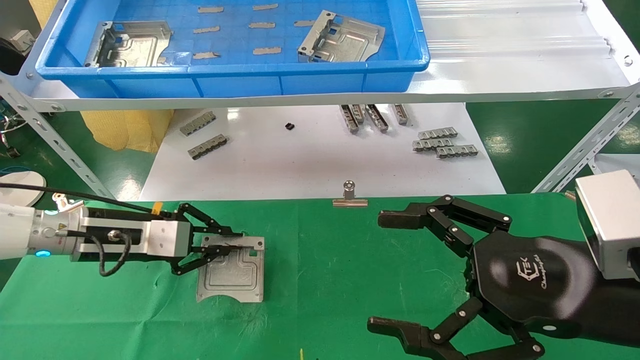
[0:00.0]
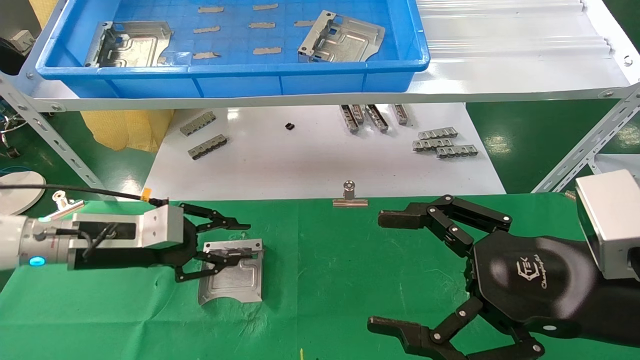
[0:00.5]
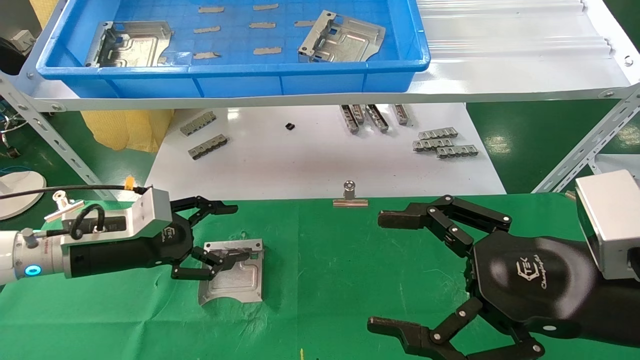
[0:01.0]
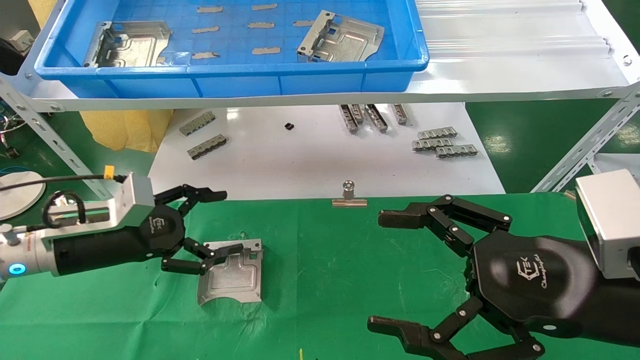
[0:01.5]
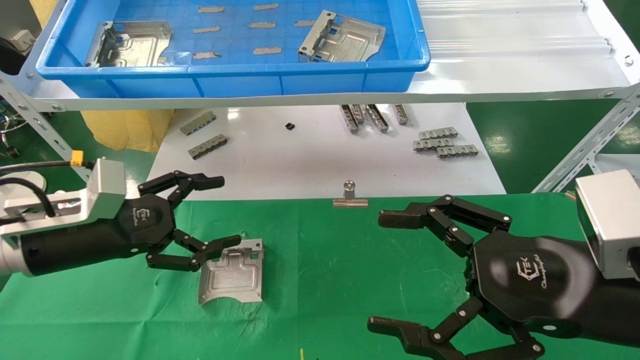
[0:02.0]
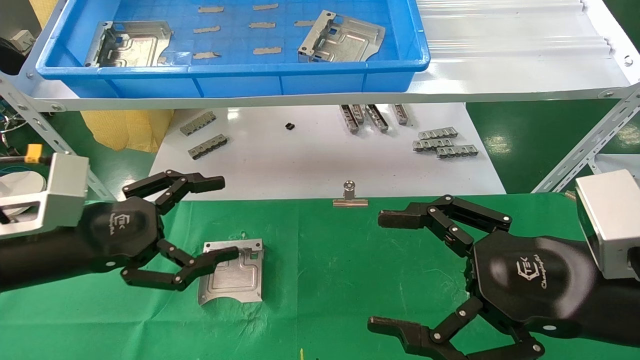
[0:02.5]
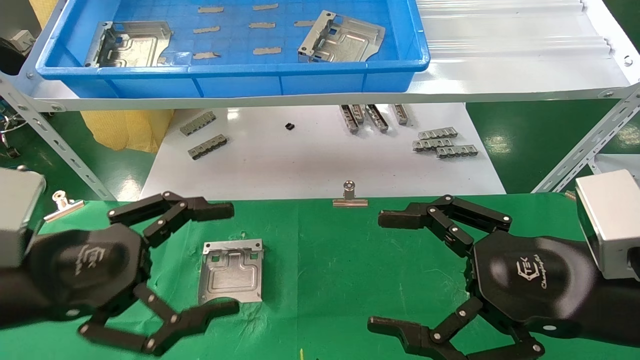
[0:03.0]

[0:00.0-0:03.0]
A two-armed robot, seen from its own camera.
Task of the whole recording: use the mechanical arm to pick up the parts and place them on the table.
0:00.0 to 0:01.5: The left gripper opens its fingers.
0:01.5 to 0:03.0: The left gripper travels backward by roughly 15 cm.
